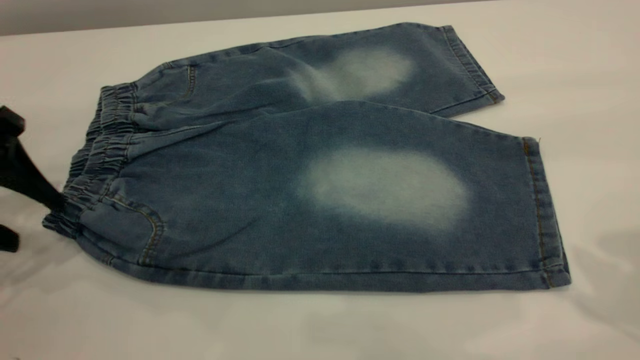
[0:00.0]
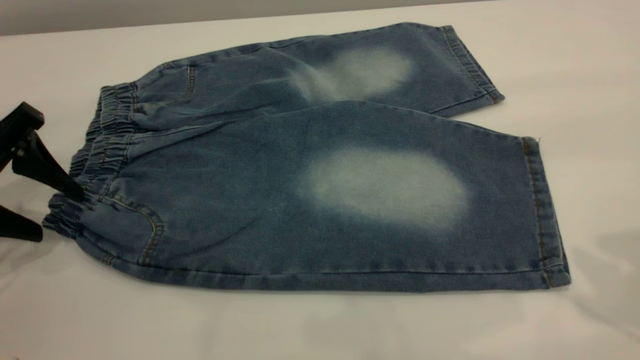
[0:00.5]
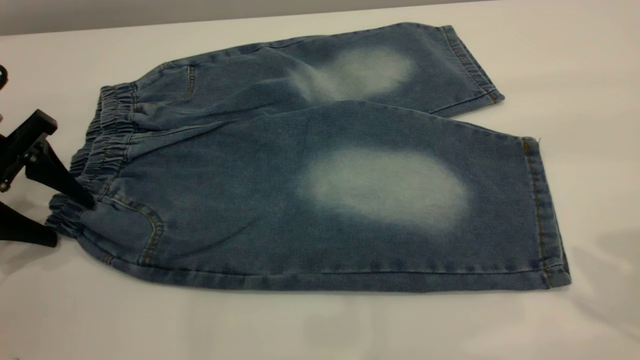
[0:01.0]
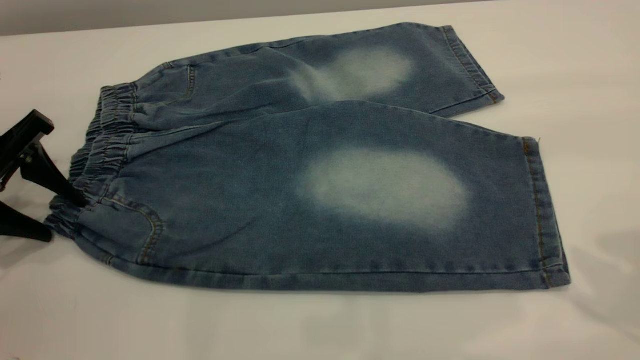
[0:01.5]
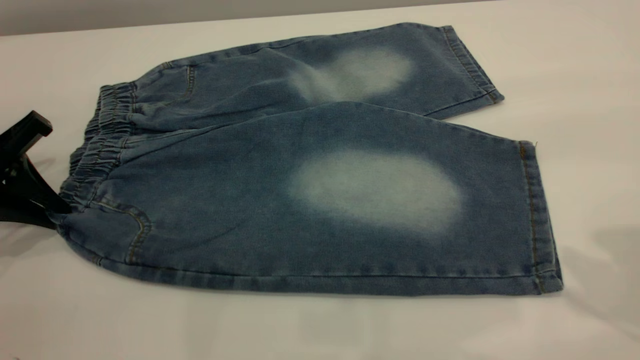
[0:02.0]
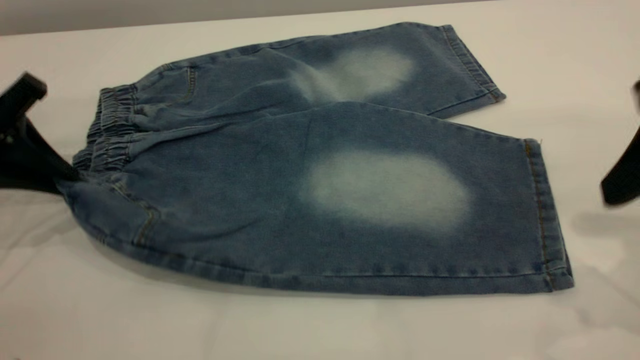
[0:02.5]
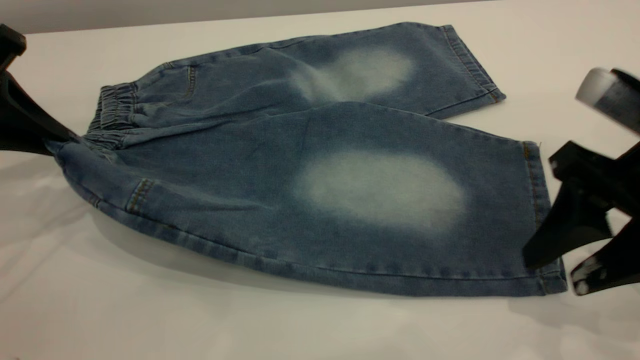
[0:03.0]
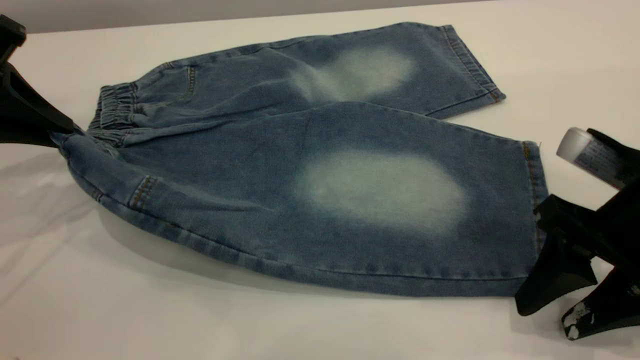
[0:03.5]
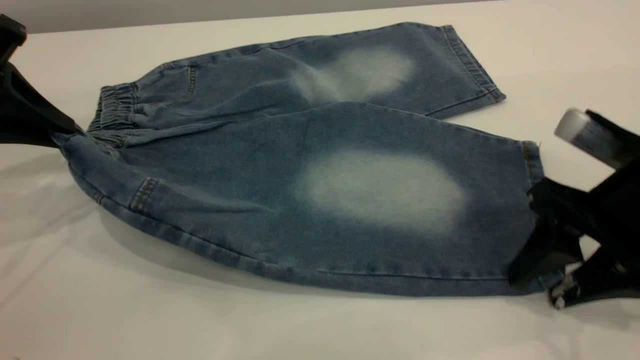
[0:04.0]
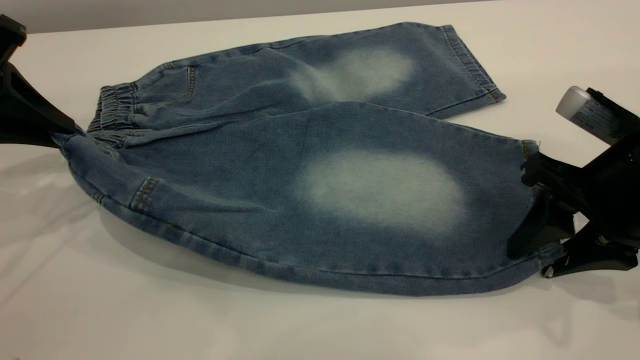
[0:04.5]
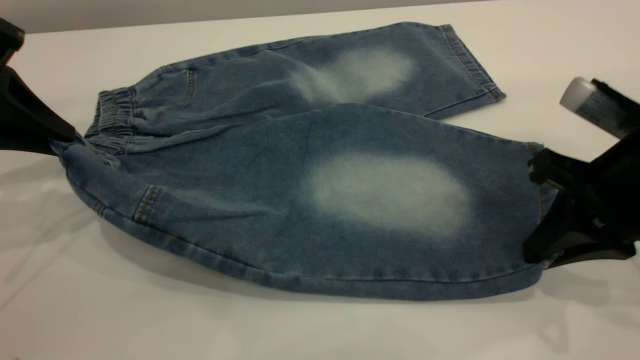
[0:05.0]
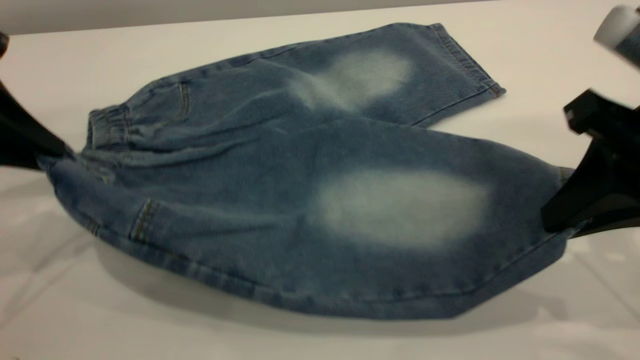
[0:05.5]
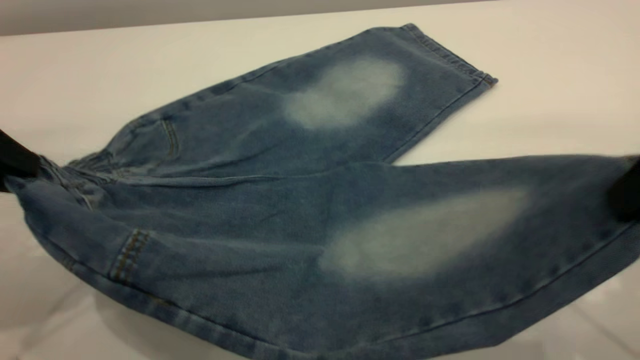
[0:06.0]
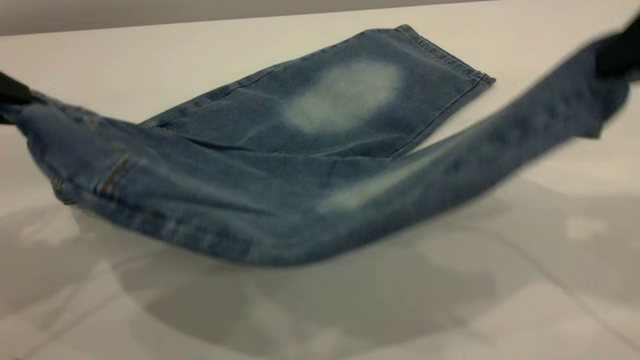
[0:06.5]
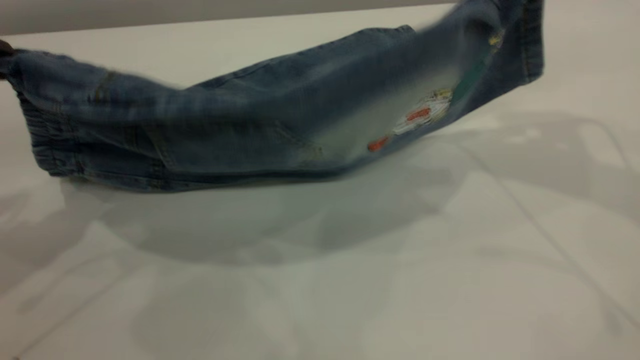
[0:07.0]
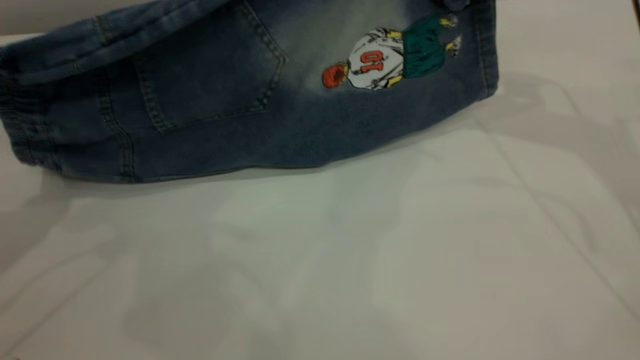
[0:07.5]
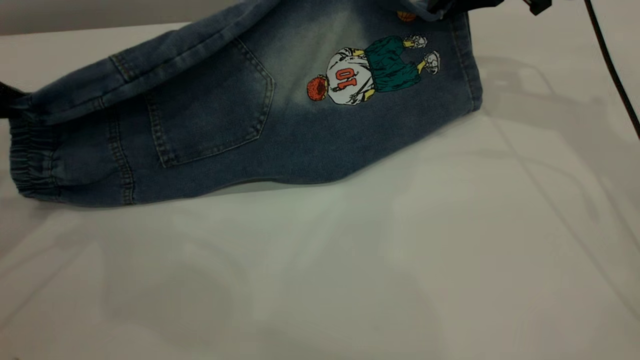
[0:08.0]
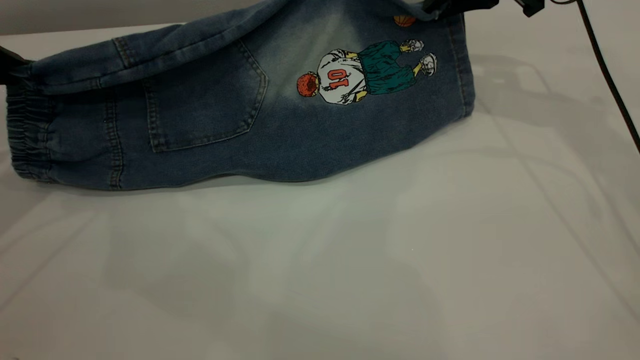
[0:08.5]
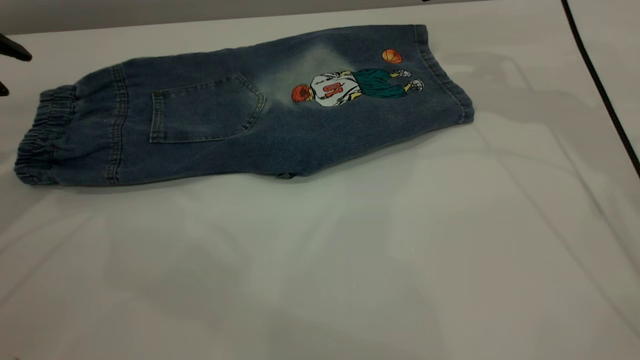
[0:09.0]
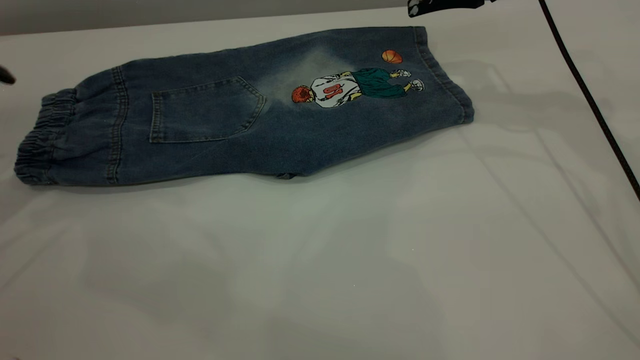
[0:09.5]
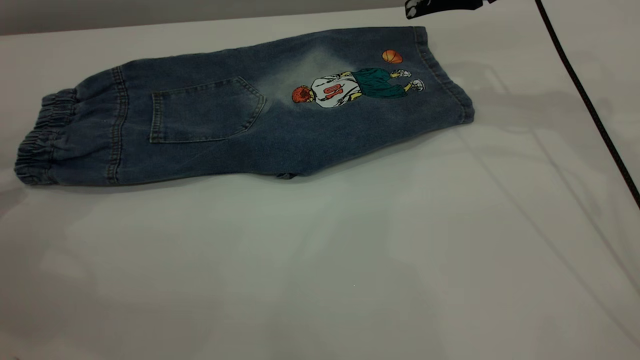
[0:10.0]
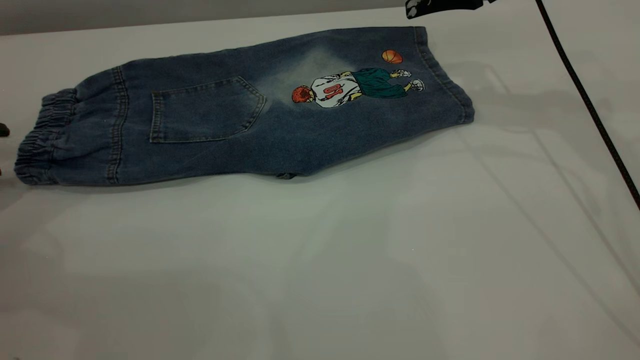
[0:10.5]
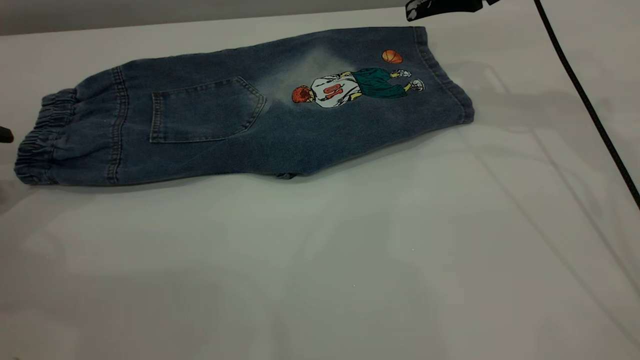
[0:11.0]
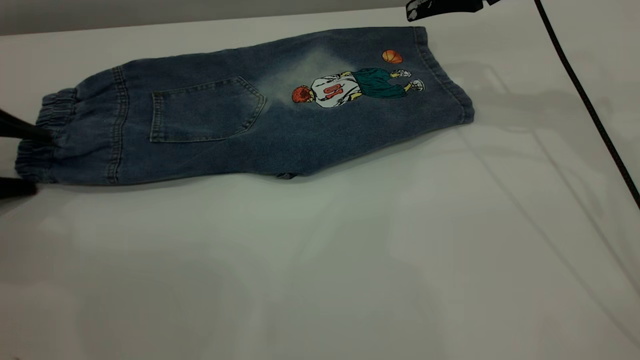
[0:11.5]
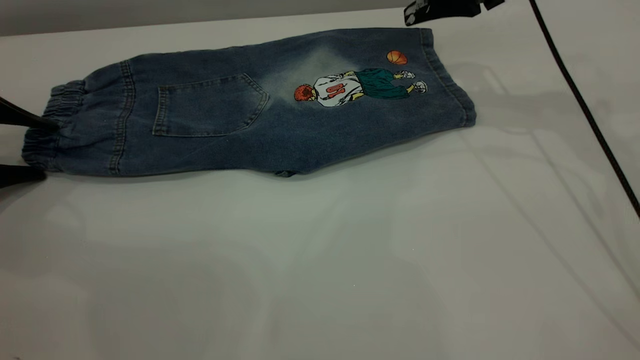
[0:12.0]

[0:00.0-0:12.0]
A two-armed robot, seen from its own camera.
Step, 0:00.0 to 0:10.0: Fold the bottom of the pants upward.
0:00.0 to 0:02.0: The left gripper closes up.
0:02.0 to 0:04.0: The left gripper goes about 5 cm upward; the right gripper goes some 20 cm downward.
0:04.0 to 0:06.0: The left gripper moves backward, some 10 cm; the right gripper moves upward, approximately 15 cm, and closes its fingers.
0:06.0 to 0:08.0: The right gripper is displaced forward by roughly 30 cm; the left gripper goes about 5 cm forward.
0:08.0 to 0:10.0: The left gripper goes roughly 10 cm to the left and downward, and opens. Meanwhile the right gripper opens its fingers.
0:10.0 to 0:12.0: The left gripper travels downward and forward by some 10 cm.

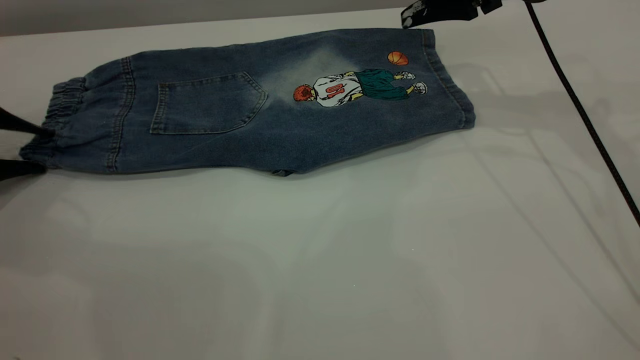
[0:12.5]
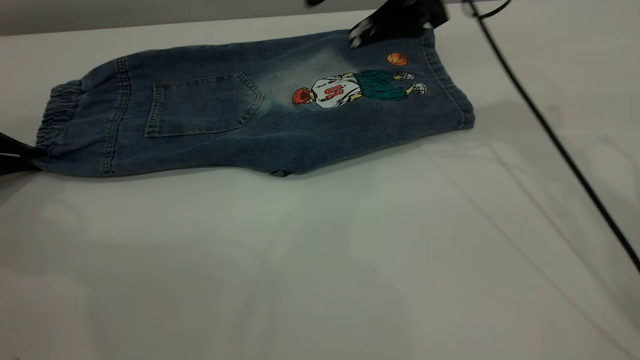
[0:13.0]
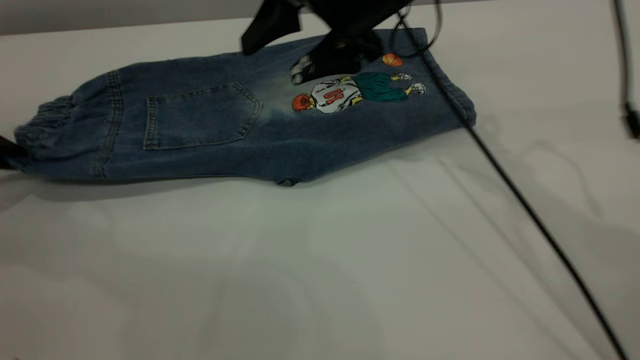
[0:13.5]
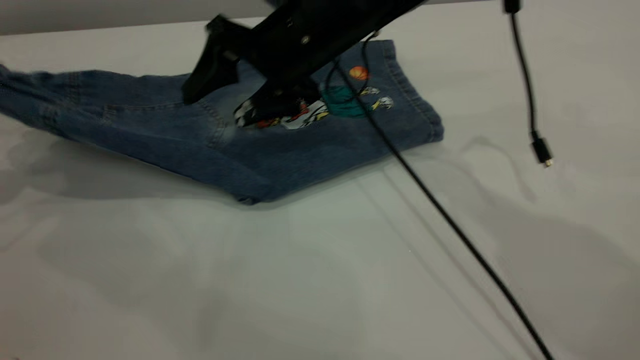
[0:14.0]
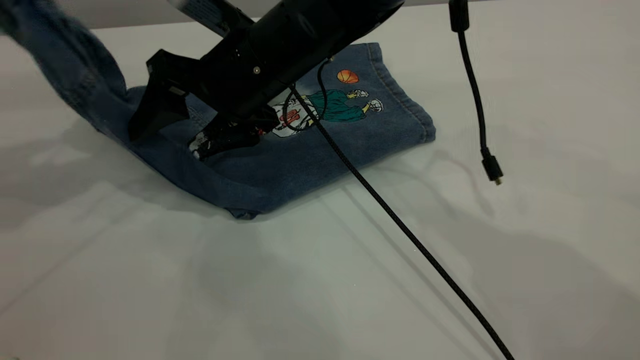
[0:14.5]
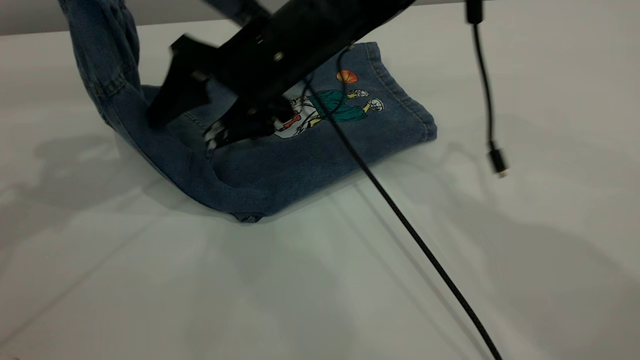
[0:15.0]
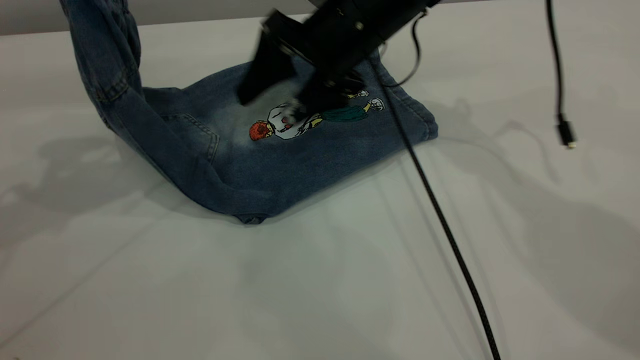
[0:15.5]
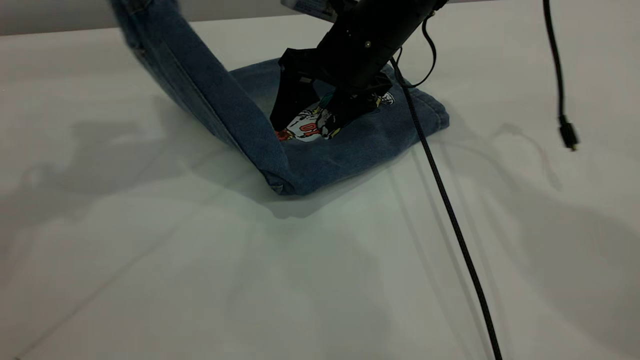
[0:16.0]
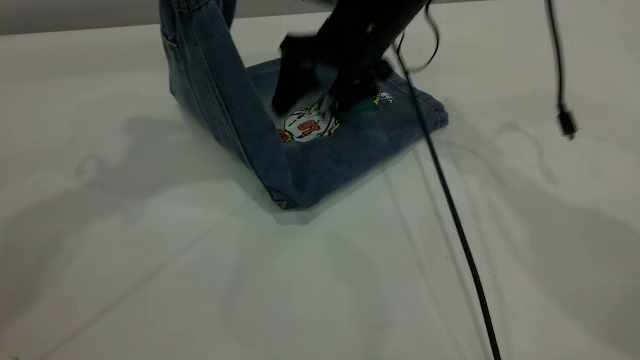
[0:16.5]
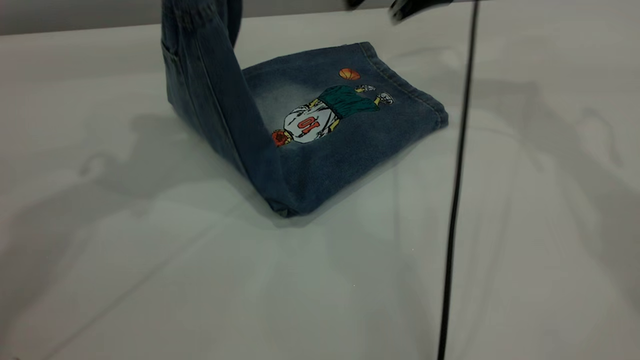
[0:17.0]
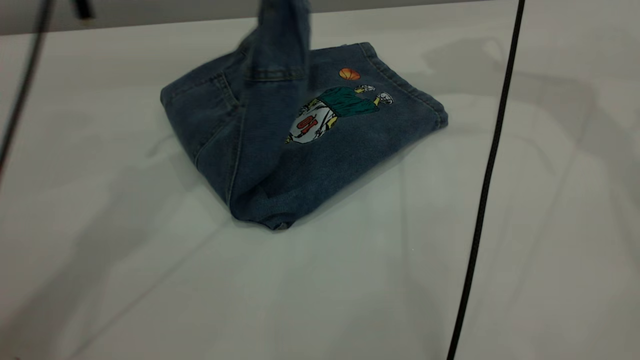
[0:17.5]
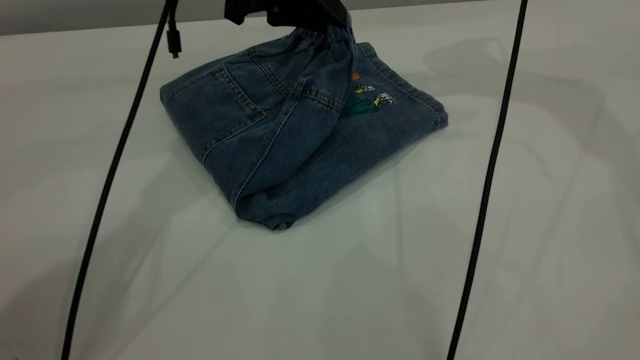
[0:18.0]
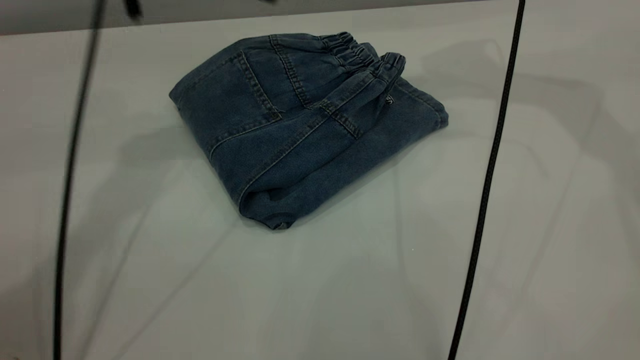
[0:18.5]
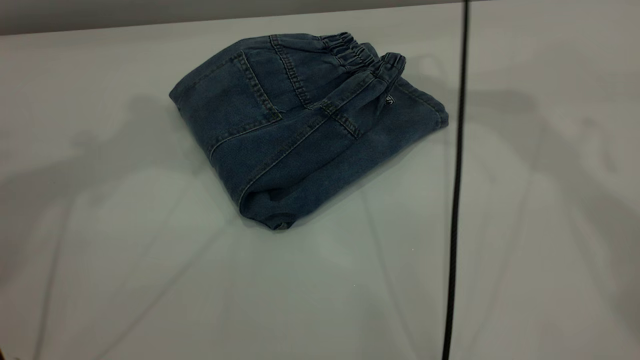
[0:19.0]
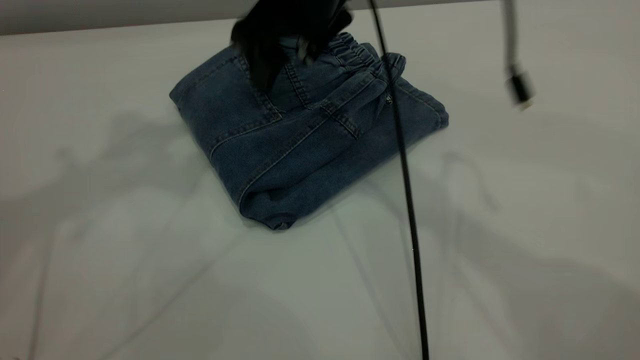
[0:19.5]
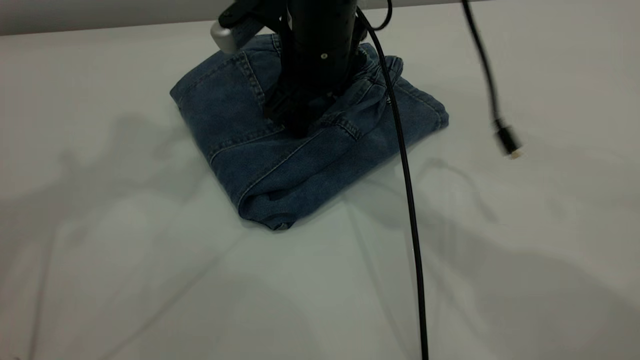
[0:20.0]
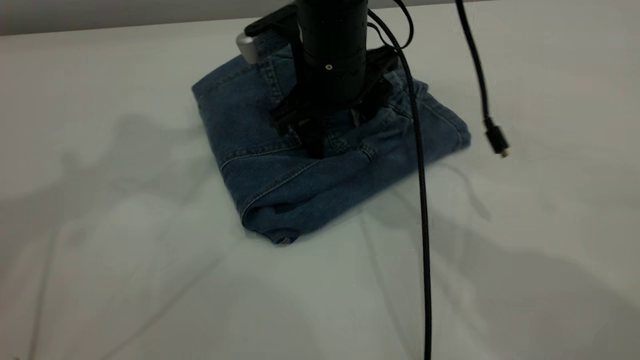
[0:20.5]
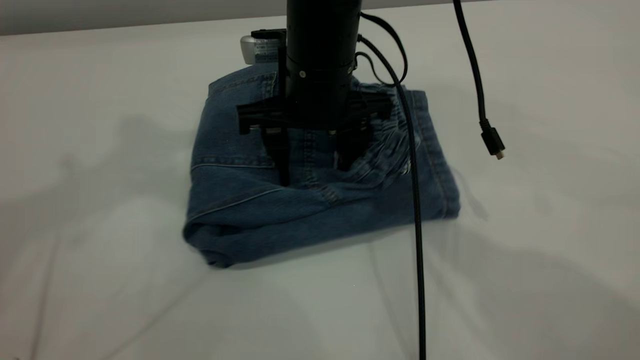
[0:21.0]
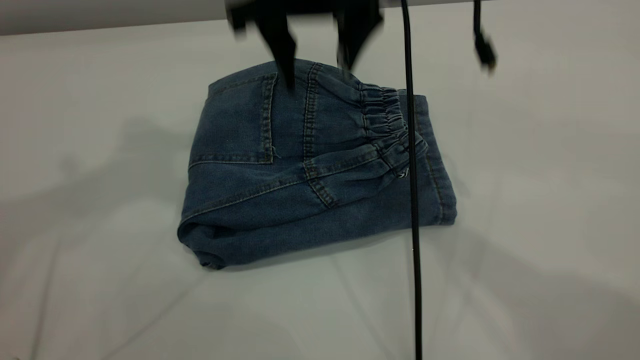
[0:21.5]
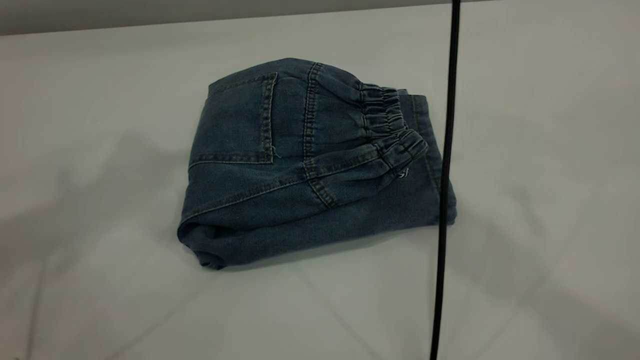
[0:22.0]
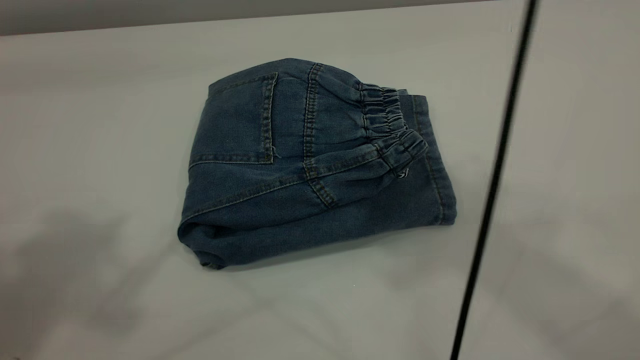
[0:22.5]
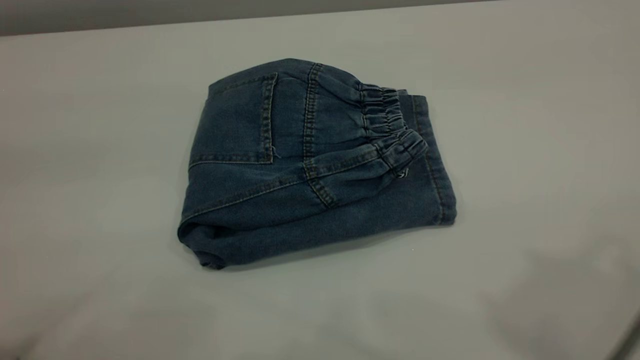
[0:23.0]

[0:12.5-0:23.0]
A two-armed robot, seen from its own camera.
Step, 0:12.5 to 0:18.0: Fold the pants from left to right.
0:12.5 to 0:14.5: The right gripper goes about 20 cm to the left. Meanwhile the left gripper shifts approximately 25 cm upward and to the right, and closes up.
0:14.5 to 0:16.5: The left gripper is displaced to the right and upward by about 15 cm, while the right gripper shifts about 10 cm to the right and forward.
0:16.5 to 0:19.0: The right gripper is displaced upward by approximately 15 cm, while the left gripper travels downward and back again, some 15 cm each way, and opens its fingers.
0:19.0 to 0:21.0: The left gripper shifts by about 5 cm. Meanwhile the right gripper moves downward, to the left and backward, about 20 cm.
0:21.0 to 0:23.0: The left gripper heads backward, covering roughly 25 cm. The right gripper heads upward, backward and to the right, covering some 50 cm.
